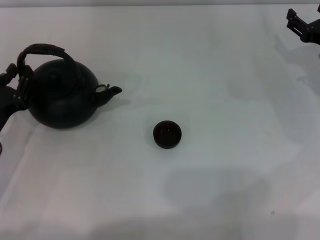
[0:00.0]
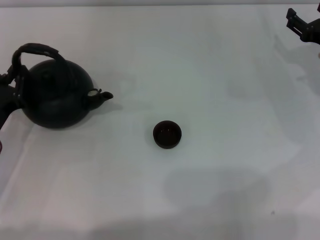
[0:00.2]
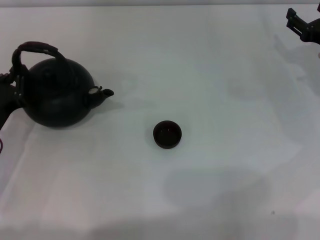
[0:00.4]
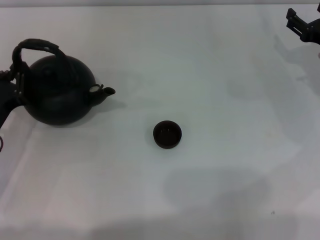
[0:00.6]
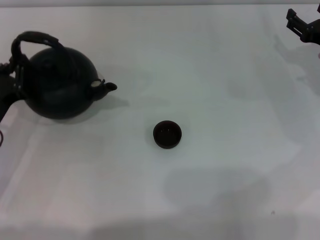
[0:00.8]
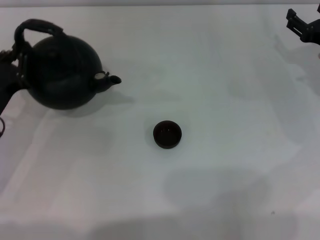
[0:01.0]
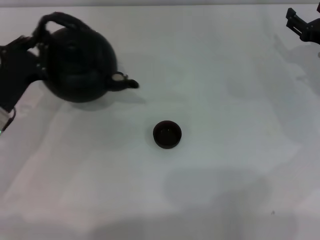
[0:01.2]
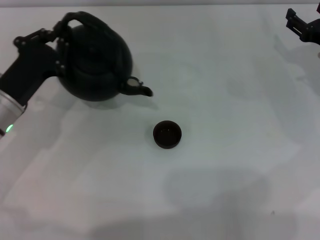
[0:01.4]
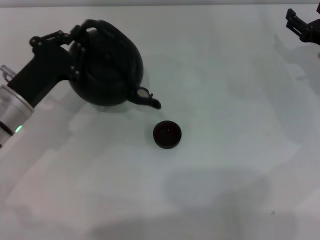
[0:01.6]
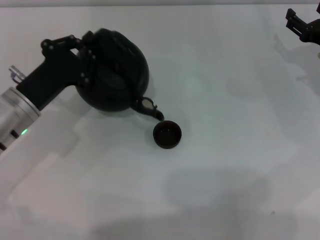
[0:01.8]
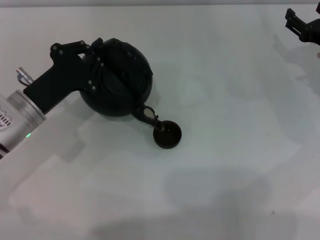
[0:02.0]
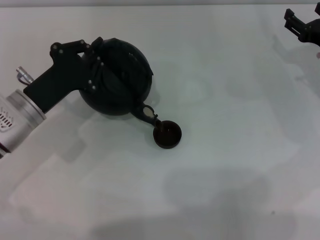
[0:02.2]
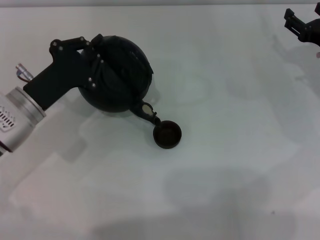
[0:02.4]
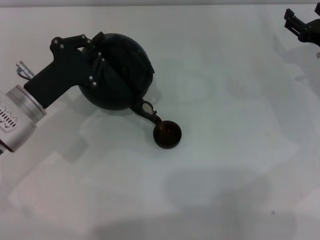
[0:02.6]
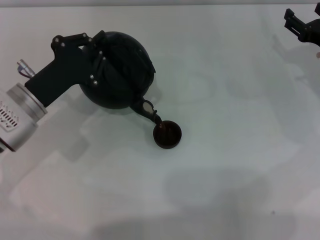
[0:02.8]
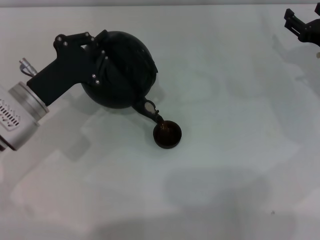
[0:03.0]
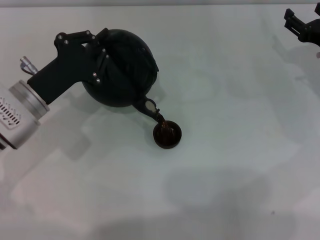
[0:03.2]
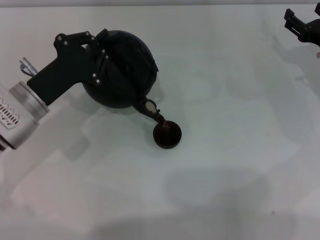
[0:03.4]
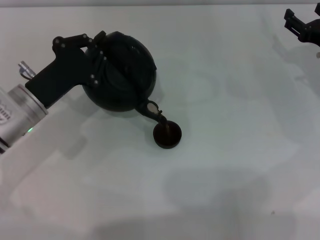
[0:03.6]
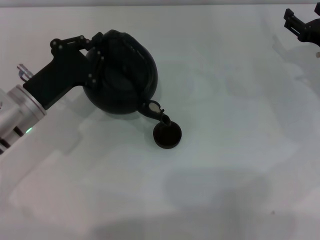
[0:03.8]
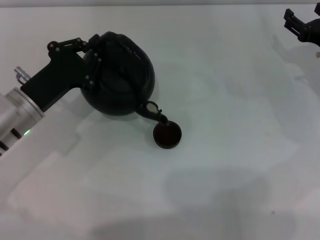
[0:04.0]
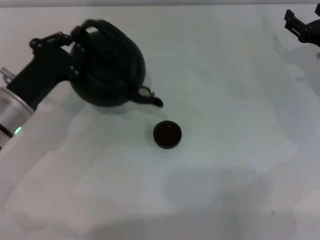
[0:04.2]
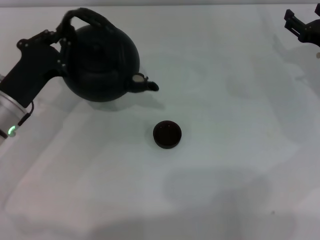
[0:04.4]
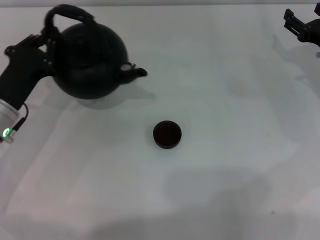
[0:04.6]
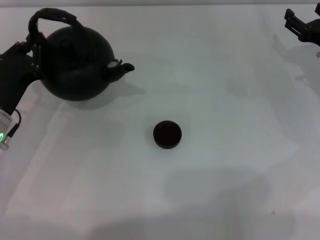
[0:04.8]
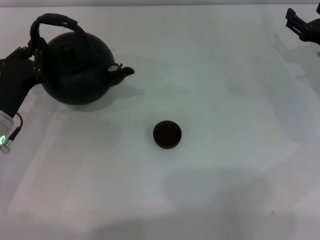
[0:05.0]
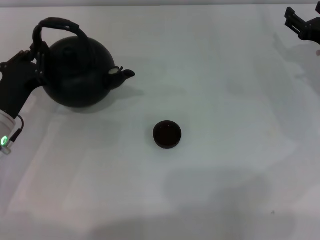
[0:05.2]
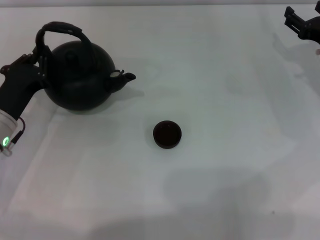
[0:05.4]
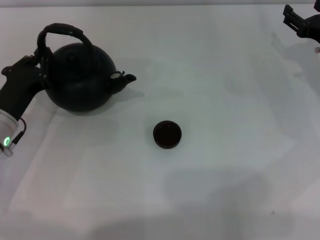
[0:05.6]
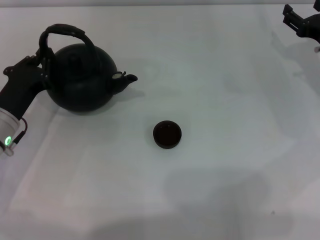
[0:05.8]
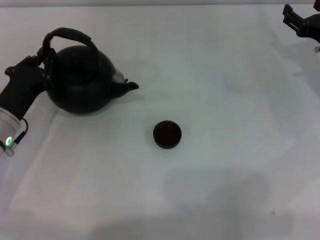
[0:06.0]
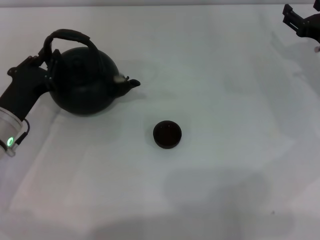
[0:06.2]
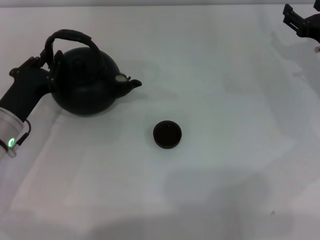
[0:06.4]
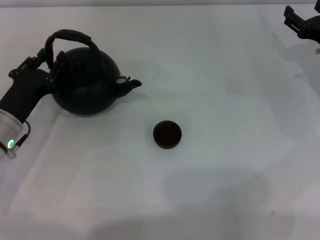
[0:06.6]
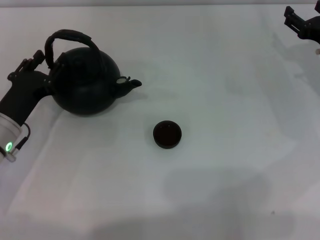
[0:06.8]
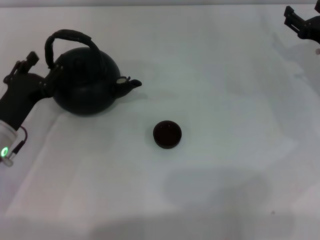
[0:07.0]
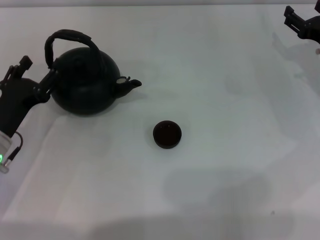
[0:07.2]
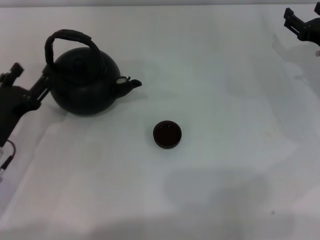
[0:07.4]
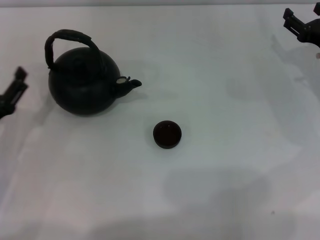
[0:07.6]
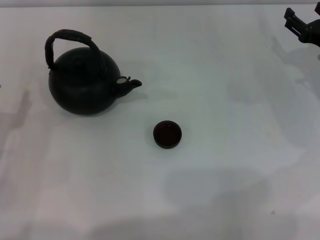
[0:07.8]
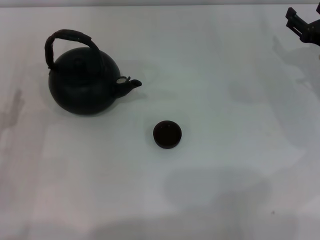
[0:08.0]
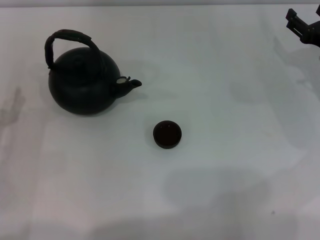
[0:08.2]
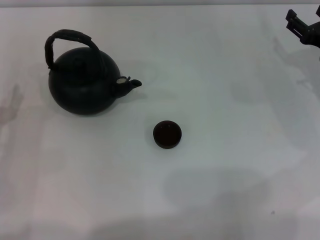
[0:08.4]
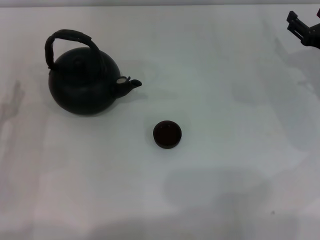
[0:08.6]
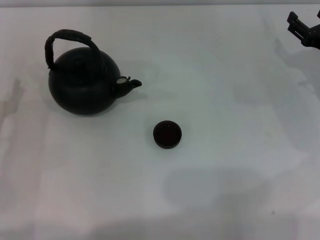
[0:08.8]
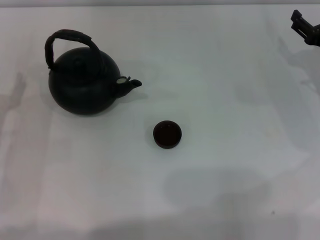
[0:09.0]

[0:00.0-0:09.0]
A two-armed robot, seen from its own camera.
Task of the whole recording: Grasp the handle of the teapot with one hand and pour tea into the teacup.
Step, 0:01.2 to 0:04.4: Pour tea into the teacup with the left gripper.
Step, 0:04.6 to 0:07.4: Put down the teapot with the left gripper.
0:00.0 to 0:01.6: The left gripper is displaced forward and to the right by roughly 10 cm, and closes.
0:04.4 to 0:06.0: There are only small adjustments of the grippers.
0:06.0 to 0:07.6: The left gripper is displaced backward by about 5 cm, and opens its fingers.
0:07.6 to 0:09.0: The grippers move only a little.
